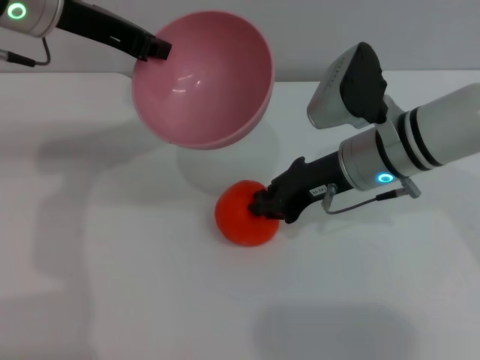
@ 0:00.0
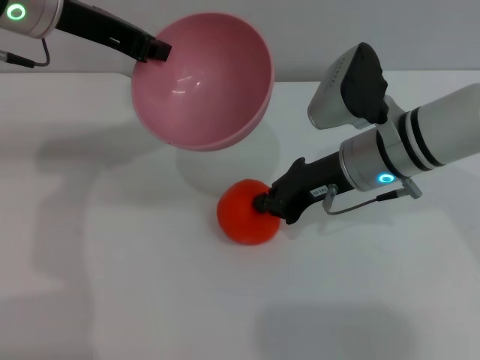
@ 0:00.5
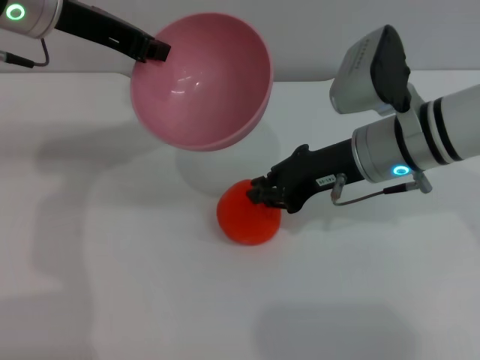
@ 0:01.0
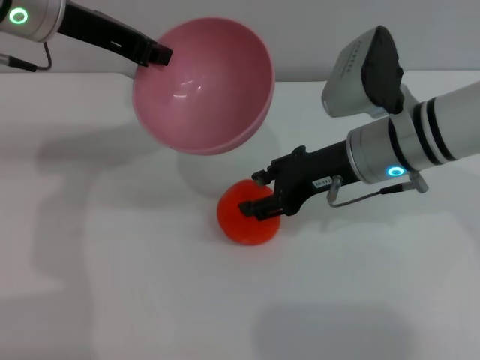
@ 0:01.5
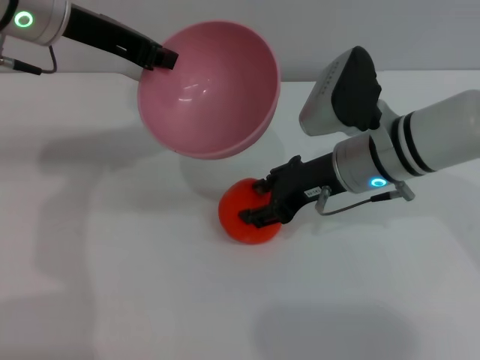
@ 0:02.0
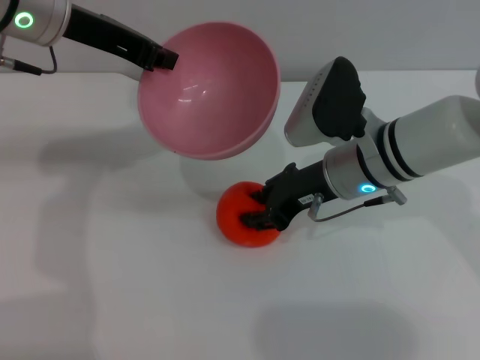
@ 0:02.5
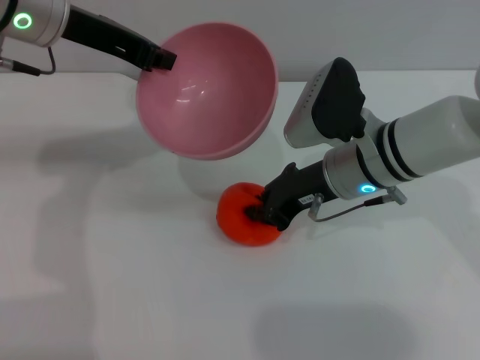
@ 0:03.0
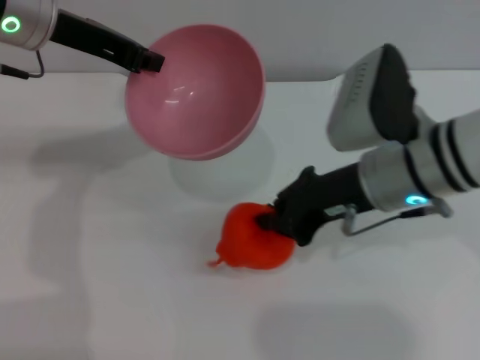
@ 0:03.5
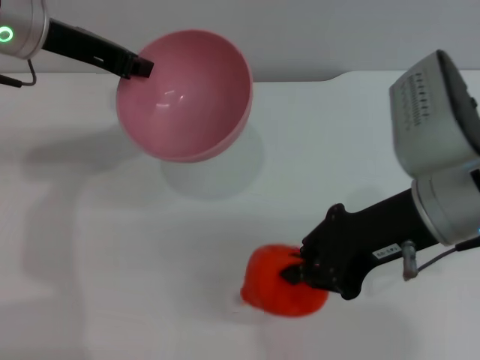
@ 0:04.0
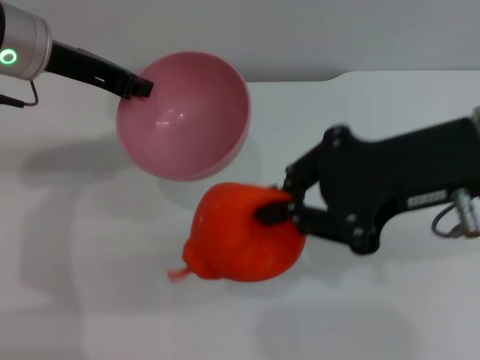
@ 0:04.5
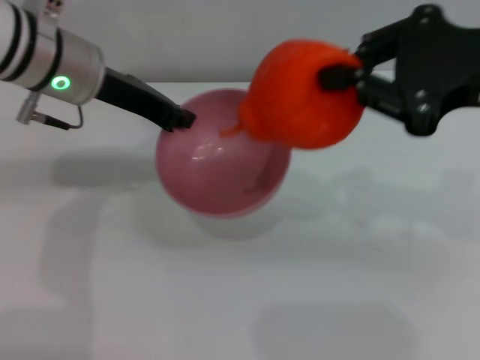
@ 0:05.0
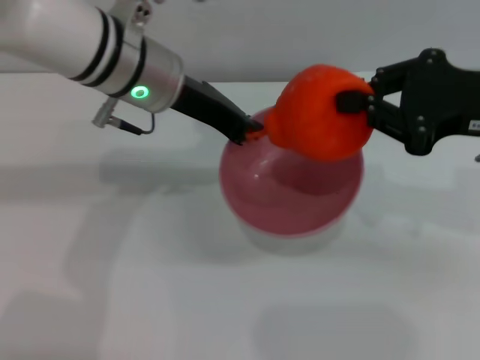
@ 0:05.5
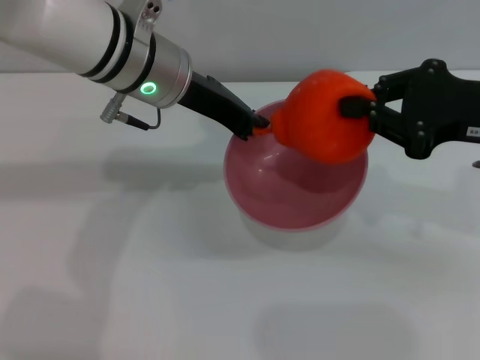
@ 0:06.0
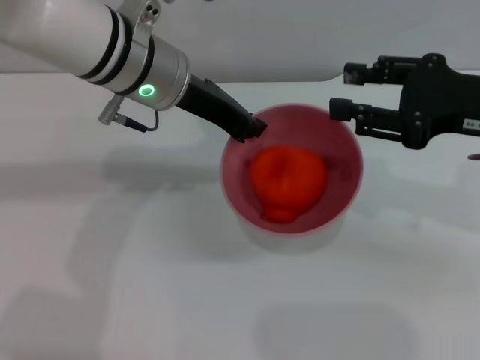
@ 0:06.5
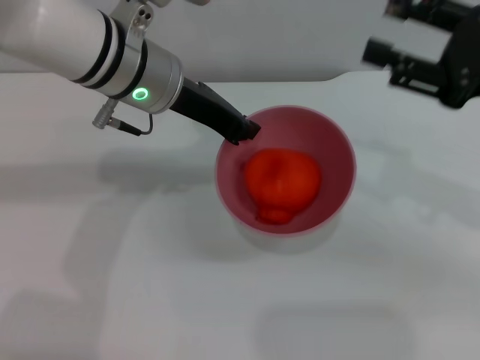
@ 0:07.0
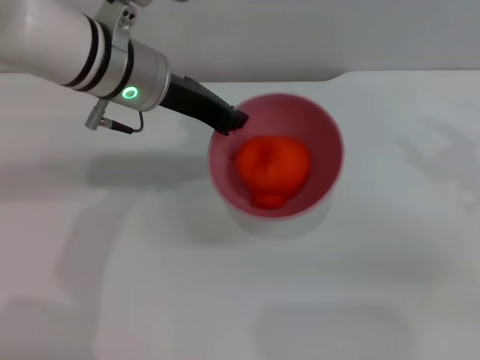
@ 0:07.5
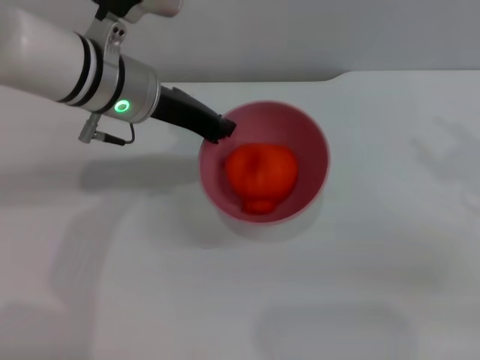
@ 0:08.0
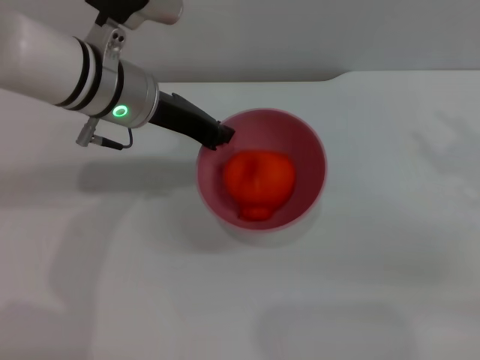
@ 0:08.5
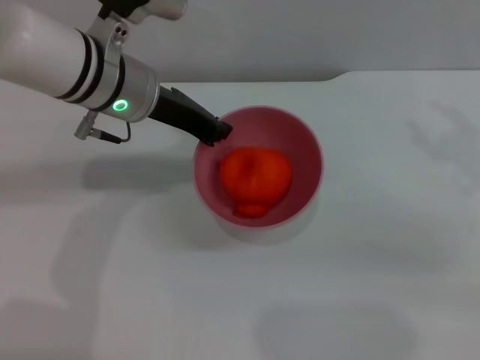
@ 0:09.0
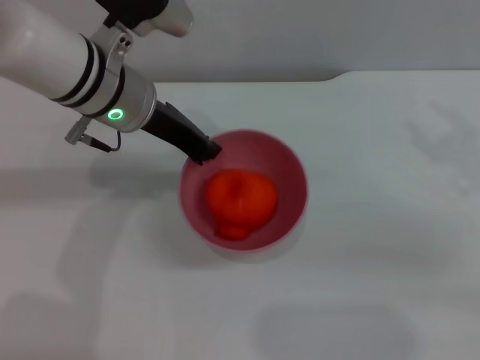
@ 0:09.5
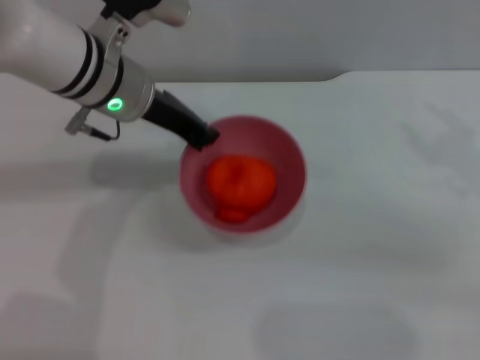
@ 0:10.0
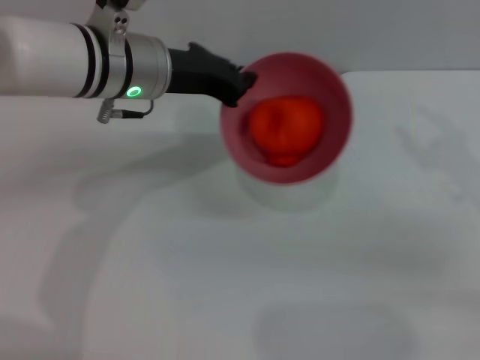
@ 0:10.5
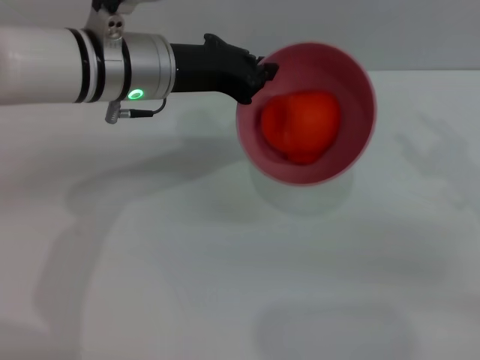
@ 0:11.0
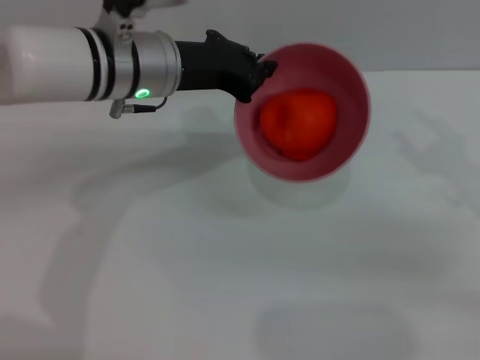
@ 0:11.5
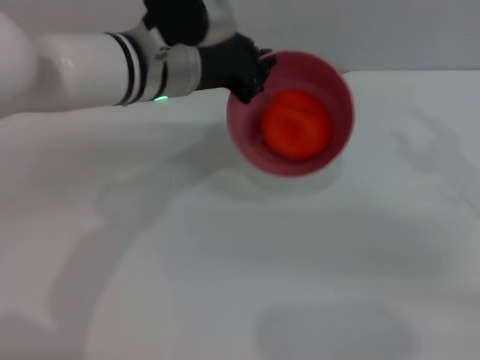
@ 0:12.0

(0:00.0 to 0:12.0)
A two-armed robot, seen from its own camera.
Task of the whole recording: put the orange into the pink bowl and pour it out repeatedly.
Step, 0:00.0 - 0:04.5: Pick up the orange with the right gripper.
Step, 0:05.0 - 0:06.5: Place the orange into the bowl.
0:00.0 - 0:02.0: The right gripper opens its fingers.
0:02.0 - 0:04.0: The right gripper shifts approximately 10 cm backward and upward, and closes up.
0:04.0 - 0:06.0: Both grippers move to the right, about 10 cm.
0:06.0 - 0:08.0: The right gripper shifts approximately 5 cm to the right, and opens.
0:08.0 - 0:10.0: The grippers stay close to where they were, moving slightly.

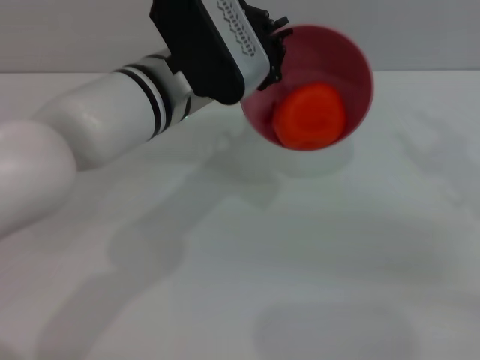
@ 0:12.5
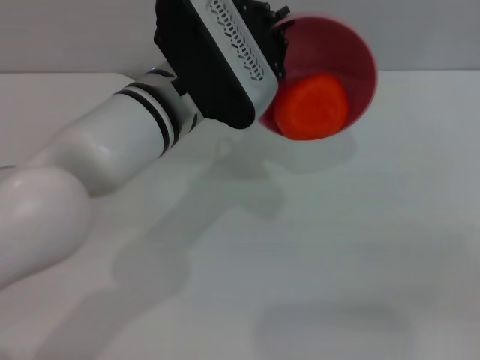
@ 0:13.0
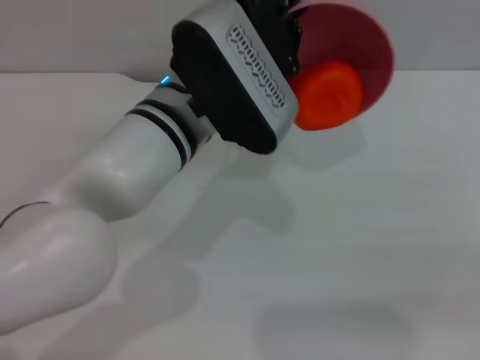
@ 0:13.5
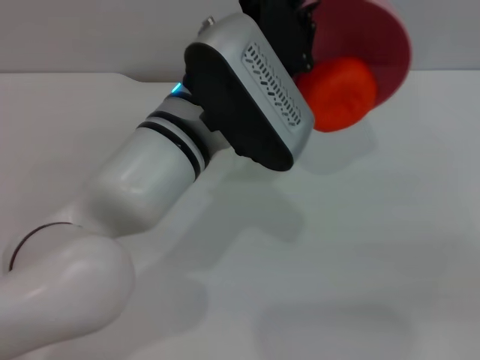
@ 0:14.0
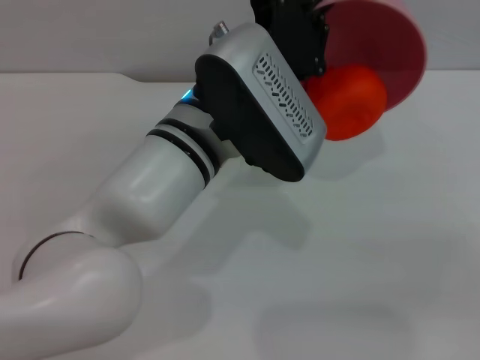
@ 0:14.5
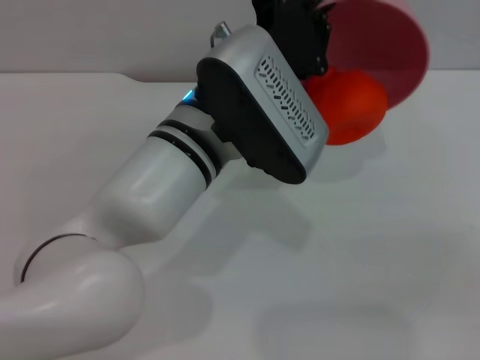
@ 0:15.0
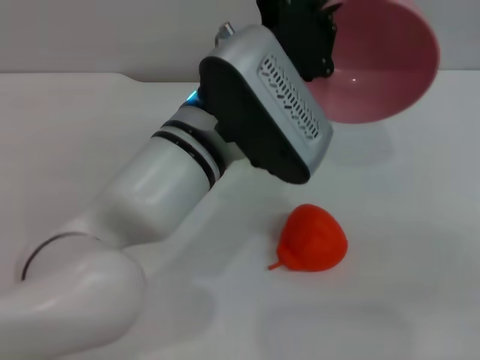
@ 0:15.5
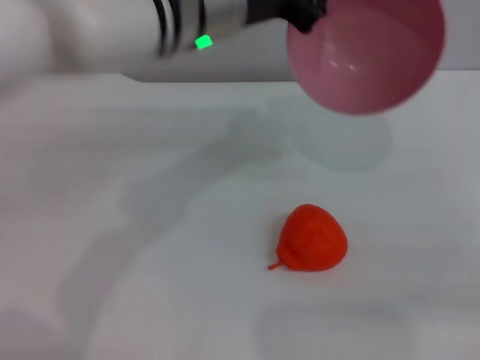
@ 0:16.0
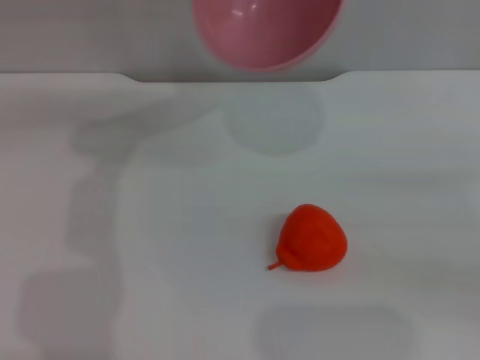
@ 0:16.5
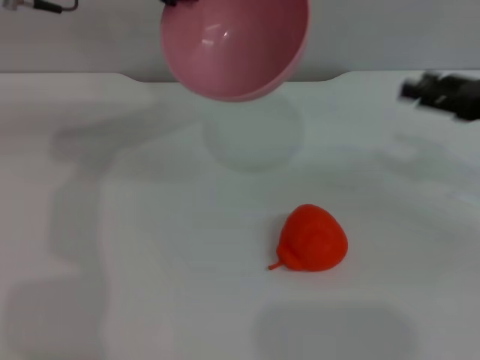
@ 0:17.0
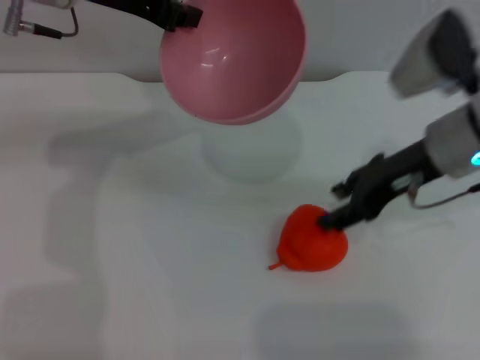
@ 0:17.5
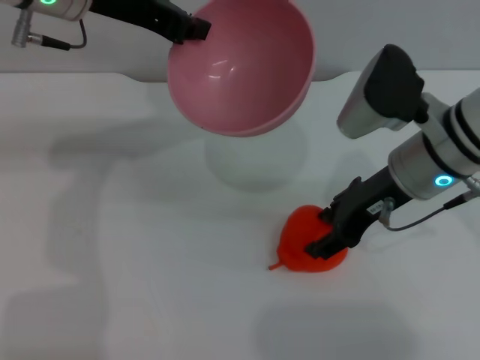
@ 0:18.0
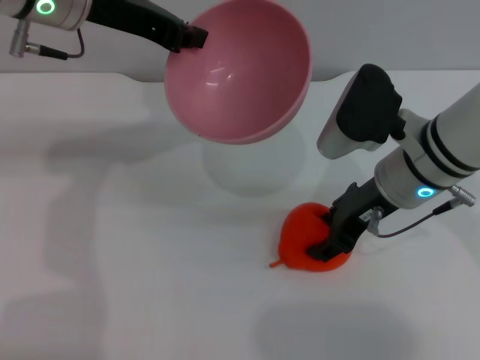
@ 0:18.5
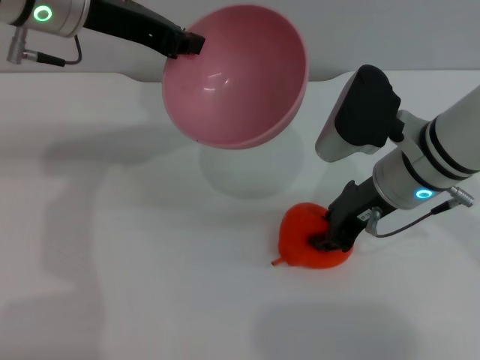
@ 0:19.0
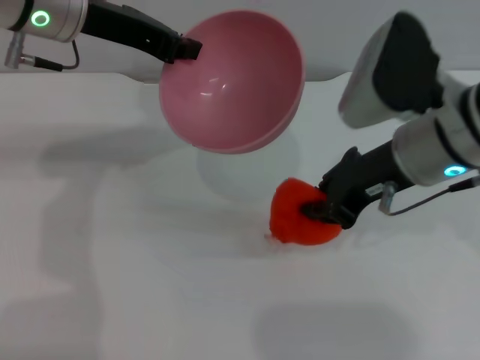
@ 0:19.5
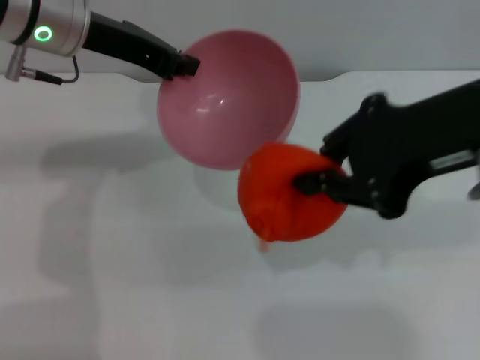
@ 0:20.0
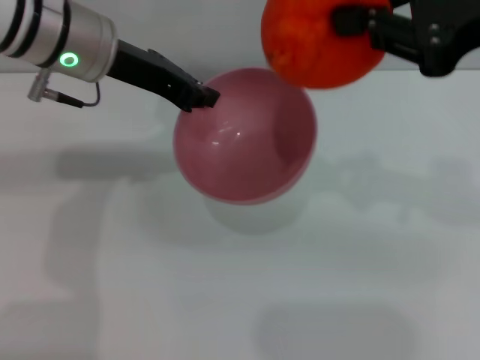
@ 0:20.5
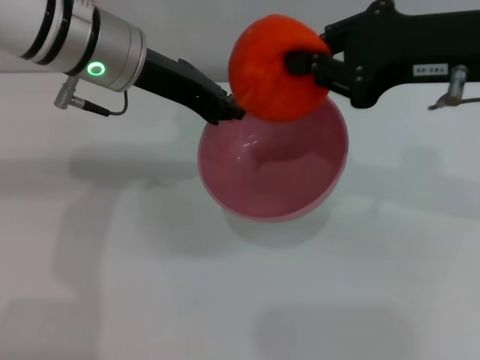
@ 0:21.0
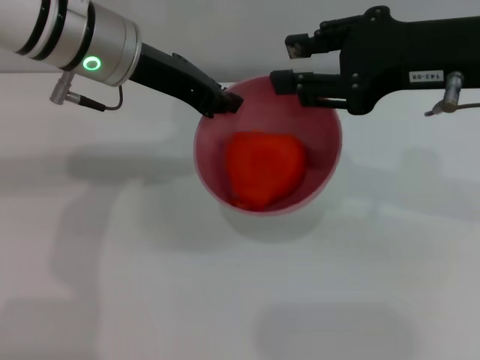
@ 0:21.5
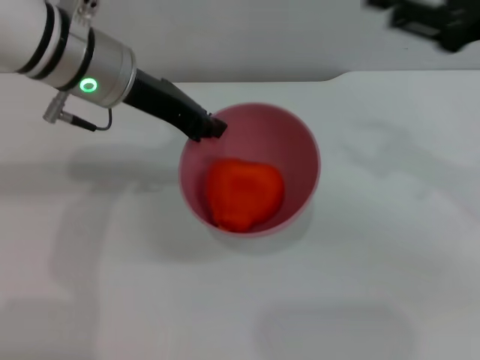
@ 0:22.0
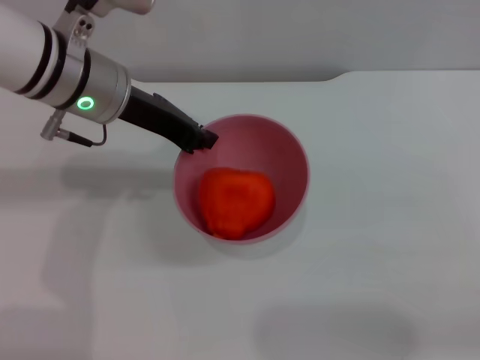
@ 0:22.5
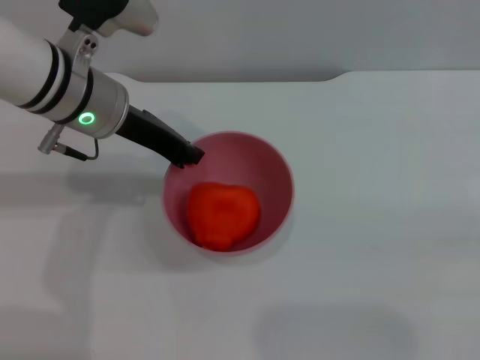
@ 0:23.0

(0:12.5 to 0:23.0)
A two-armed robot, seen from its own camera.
Task of the whole recording: put the orange into the pink bowl and pour it out repeatedly.
Step, 0:12.5 - 0:15.0: Pour the orange out of the bowl.
Step, 0:15.5 - 0:19.5: Pick up the orange with the right gripper.
Step, 0:20.5 - 0:21.5: Place the orange into the bowl.
0:12.5 - 0:14.5: The right gripper heads to the right, covering some 5 cm; the left gripper shifts by some 5 cm.
0:14.5 - 0:16.5: The right gripper heads downward, covering roughly 5 cm; the left gripper shifts about 20 cm upward, forward and to the left.
0:16.5 - 0:19.0: The right gripper travels to the left by about 25 cm; the left gripper moves approximately 5 cm.
0:19.0 - 0:21.0: The left gripper changes place by some 5 cm, while the right gripper shifts some 15 cm upward, and closes.
0:21.0 - 0:23.0: The right gripper goes about 30 cm to the right, downward and backward, and opens.

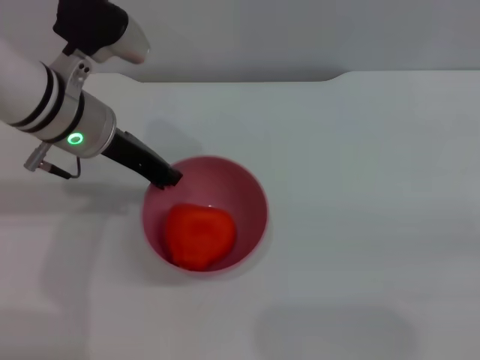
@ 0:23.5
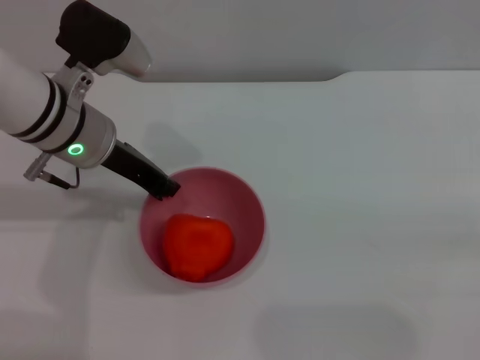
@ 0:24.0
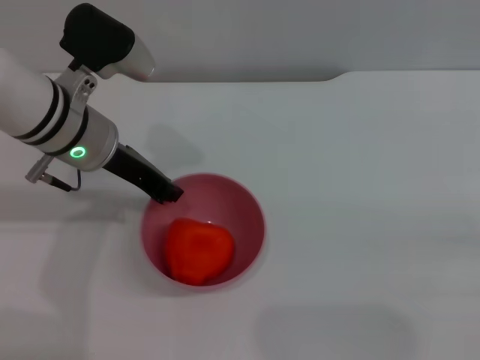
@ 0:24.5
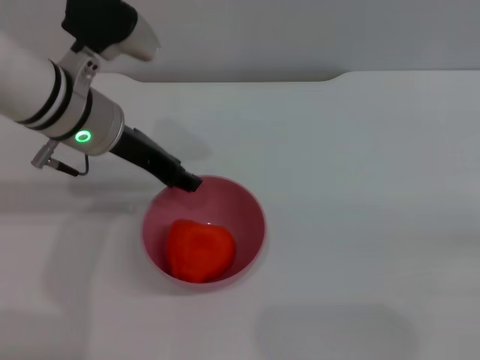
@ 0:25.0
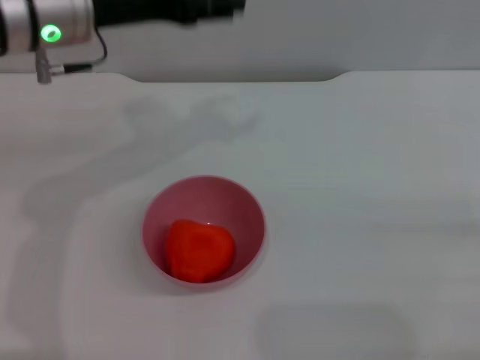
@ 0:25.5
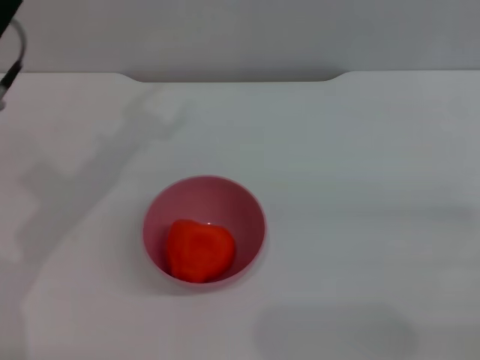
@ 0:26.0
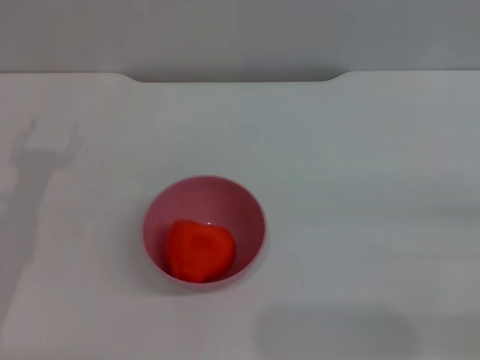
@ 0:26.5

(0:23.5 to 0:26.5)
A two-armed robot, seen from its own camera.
Task of the whole recording: put the orange into the pink bowl and pour it out repeatedly.
0:23.5 - 0:25.0: The left gripper opens.
0:25.0 - 0:26.5: The left gripper goes some 20 cm to the left, backward and downward, and opens up.
